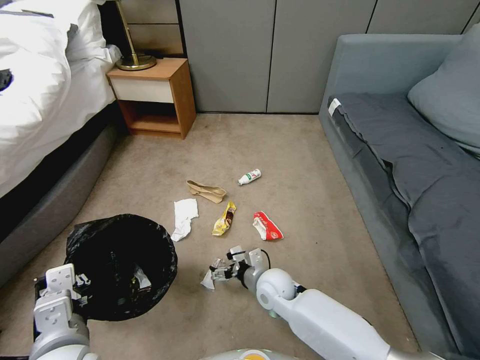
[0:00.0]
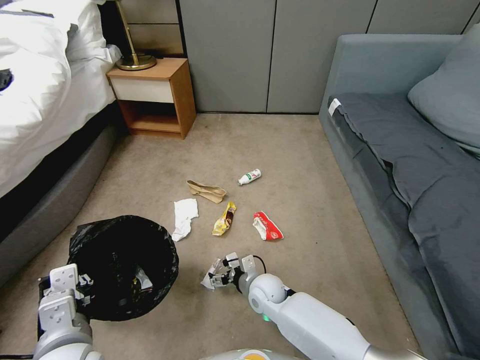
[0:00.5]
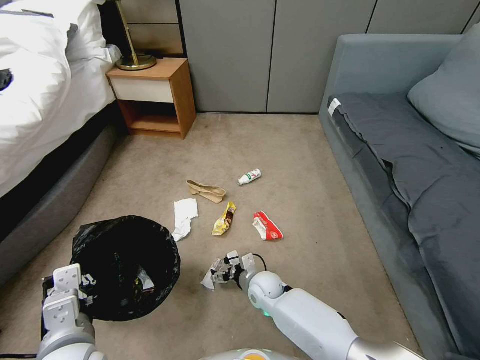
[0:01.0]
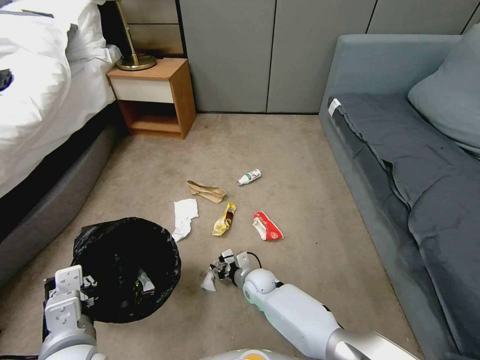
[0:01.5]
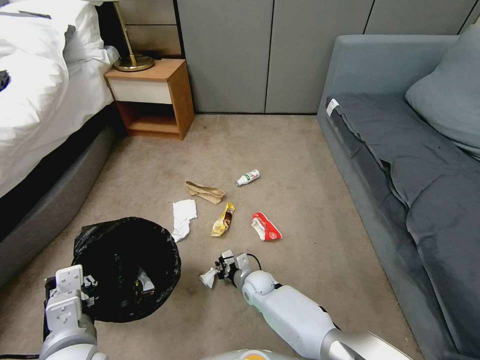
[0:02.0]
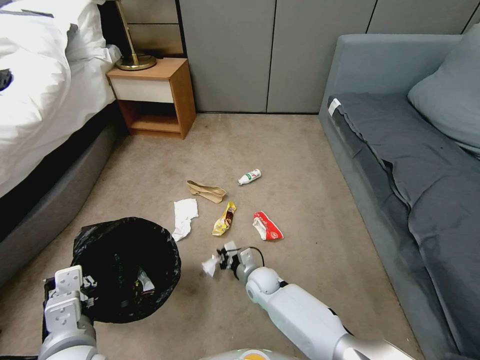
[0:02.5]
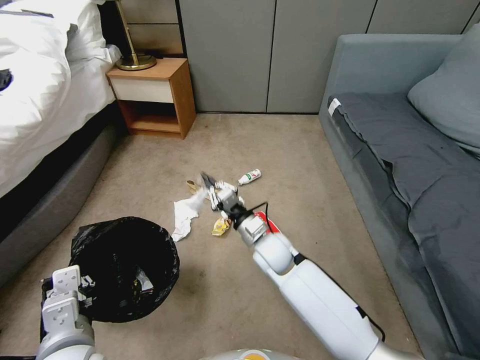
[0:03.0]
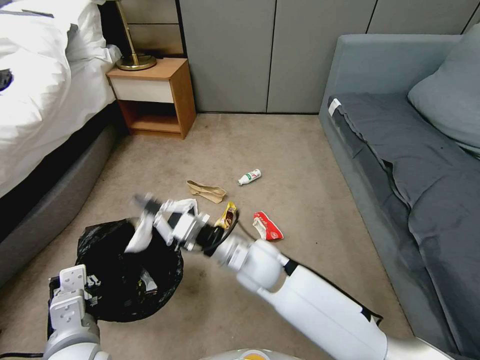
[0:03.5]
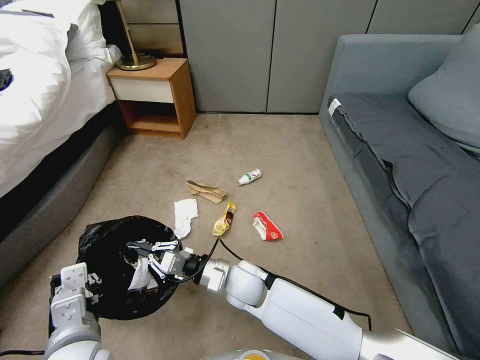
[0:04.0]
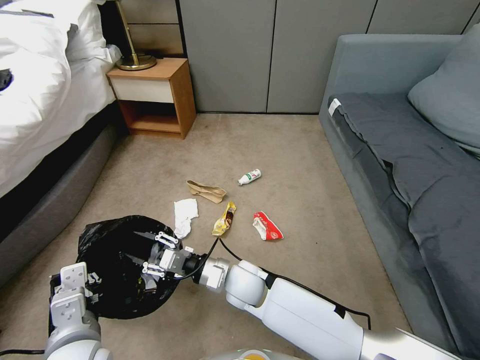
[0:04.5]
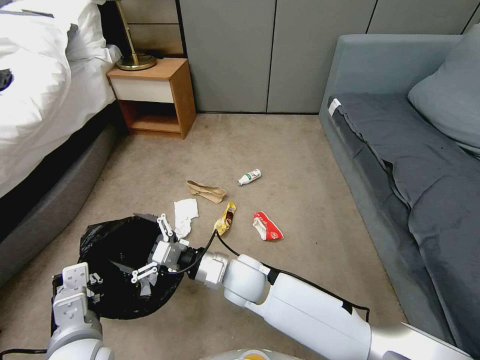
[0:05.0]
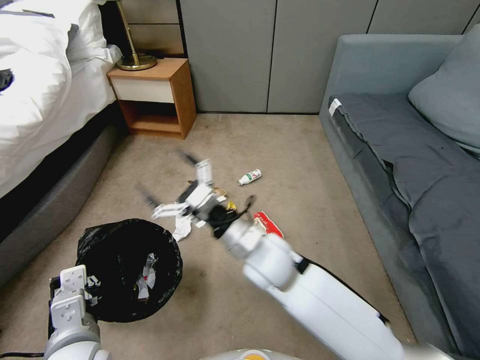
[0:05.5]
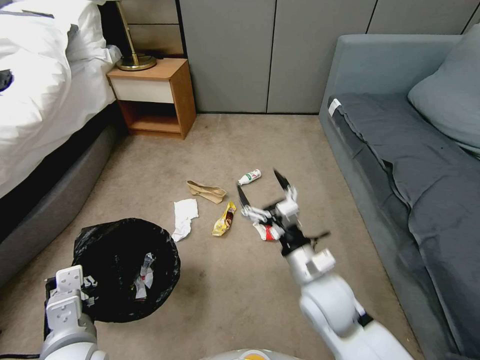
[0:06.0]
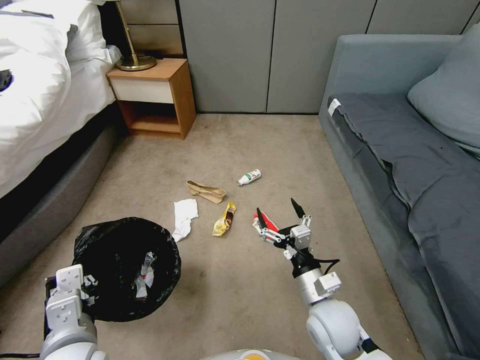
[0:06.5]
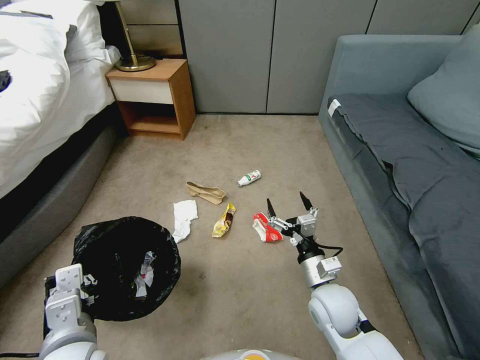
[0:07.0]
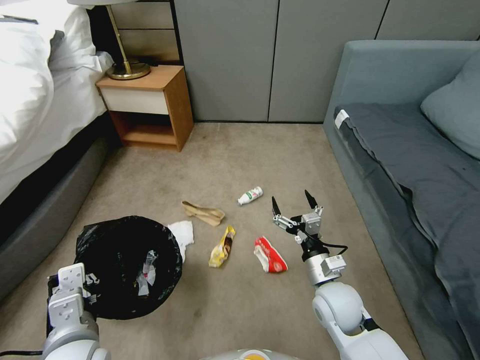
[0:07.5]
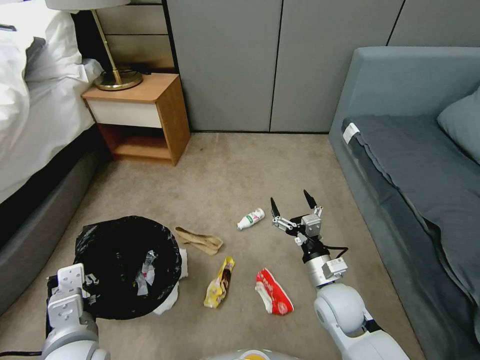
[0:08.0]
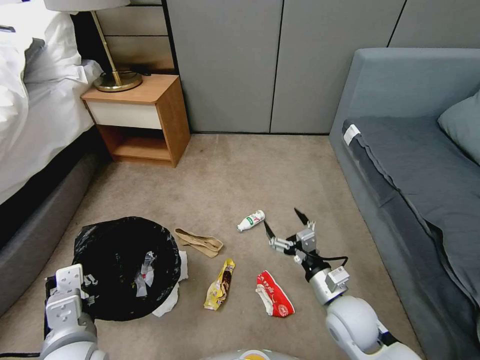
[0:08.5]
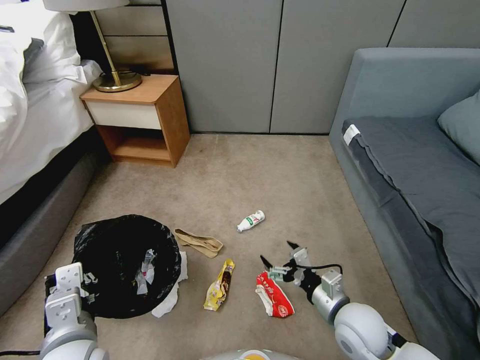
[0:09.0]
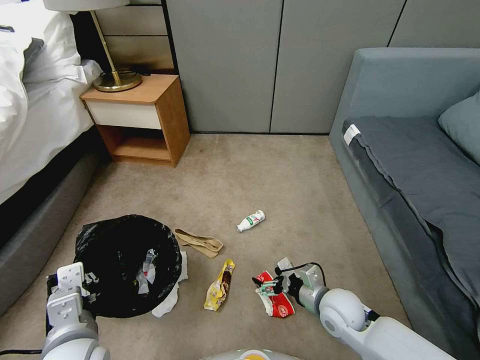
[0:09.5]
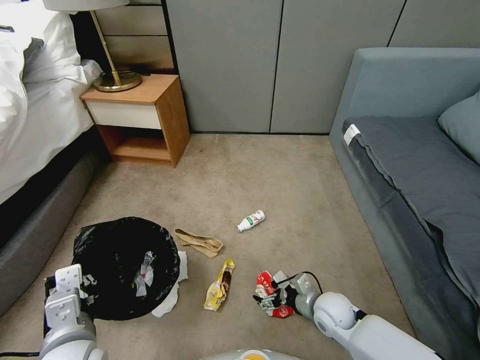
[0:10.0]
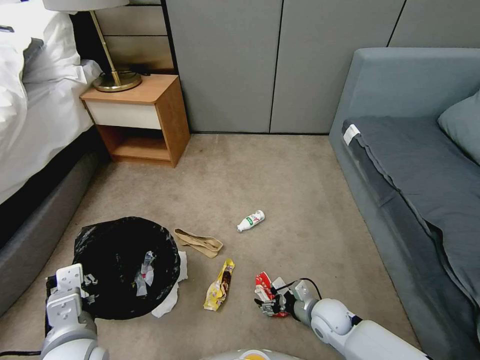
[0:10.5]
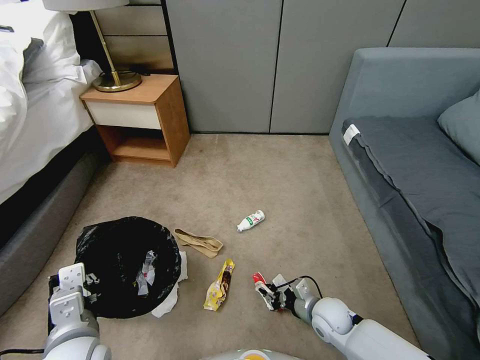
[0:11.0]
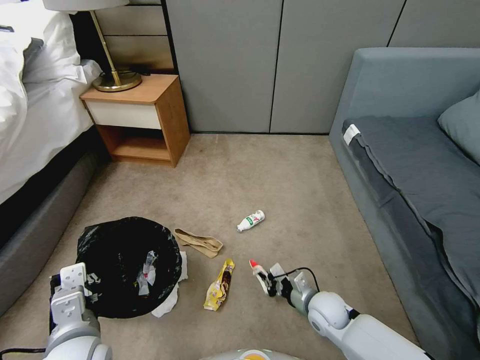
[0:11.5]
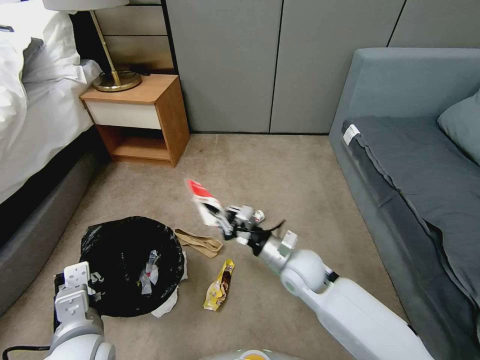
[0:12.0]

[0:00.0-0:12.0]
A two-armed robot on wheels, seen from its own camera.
Task of the whole recording: Pick up the trash bin, then pick up the garbage from the floor and place it into the trash bin.
0:00.0 to 0:02.0: The right gripper heads downward, covering approximately 10 cm, and closes its fingers.
0:02.0 to 0:04.0: The right gripper goes about 15 cm upward.
0:04.0 to 0:06.0: The right gripper shifts roughly 20 cm to the right and upward, and opens its fingers.
0:06.0 to 0:08.0: The right gripper moves downward, roughly 10 cm.
0:08.0 to 0:10.0: The right gripper moves downward, some 10 cm.
0:10.0 to 0:12.0: The right gripper travels upward and to the left by some 15 cm, and closes up.

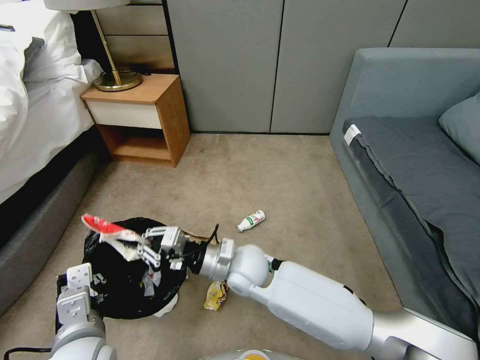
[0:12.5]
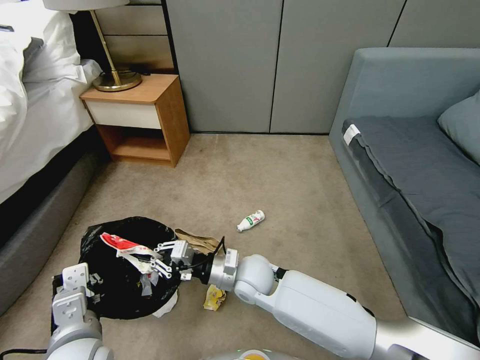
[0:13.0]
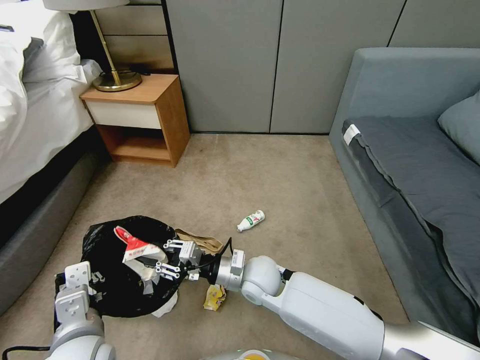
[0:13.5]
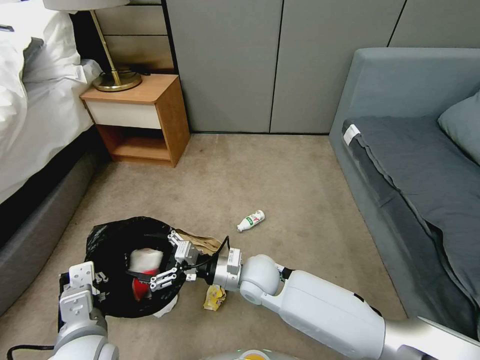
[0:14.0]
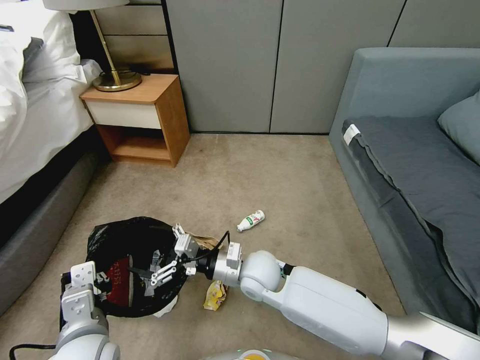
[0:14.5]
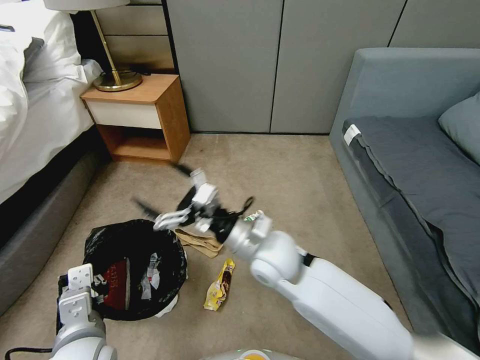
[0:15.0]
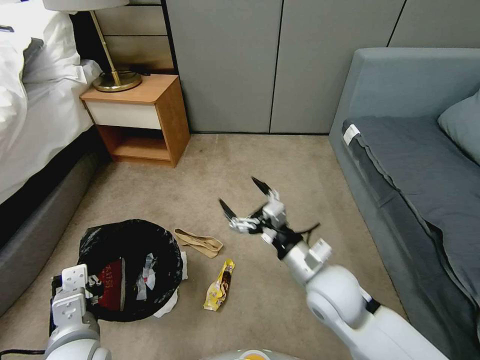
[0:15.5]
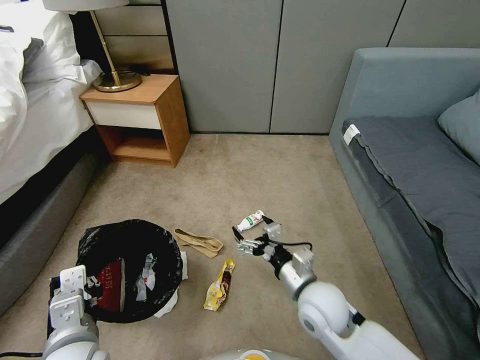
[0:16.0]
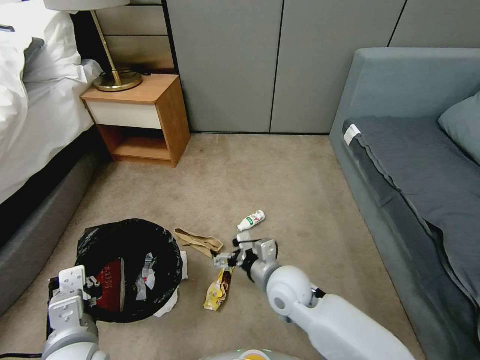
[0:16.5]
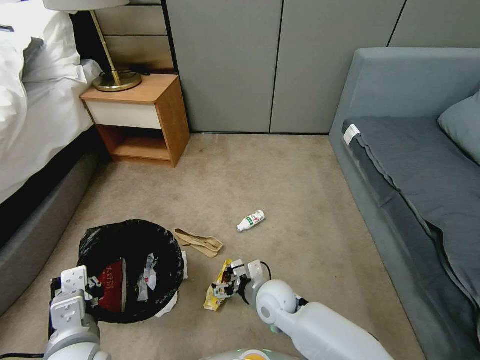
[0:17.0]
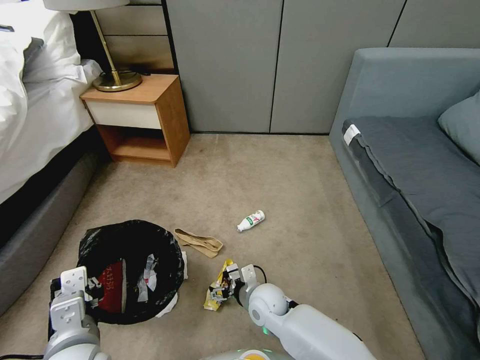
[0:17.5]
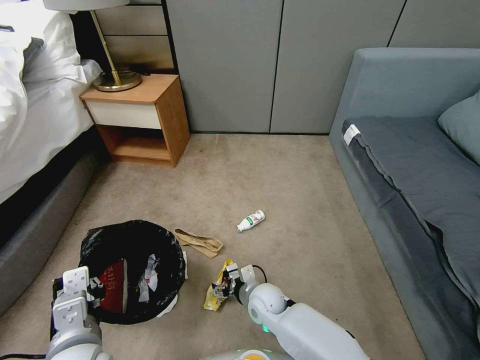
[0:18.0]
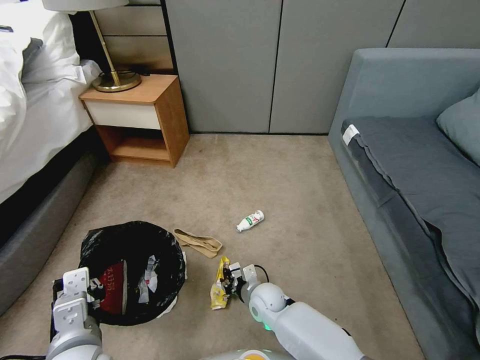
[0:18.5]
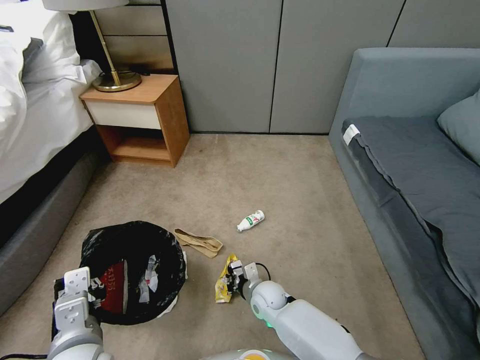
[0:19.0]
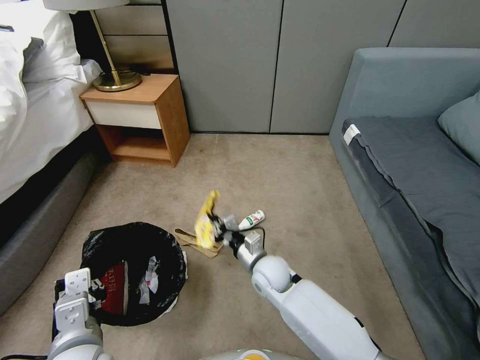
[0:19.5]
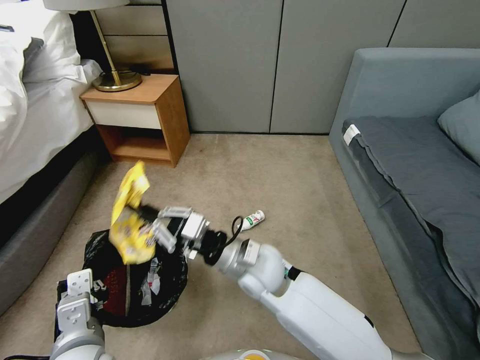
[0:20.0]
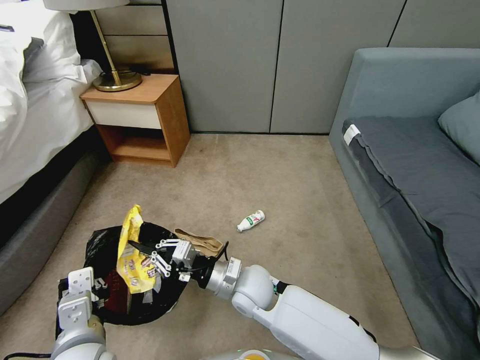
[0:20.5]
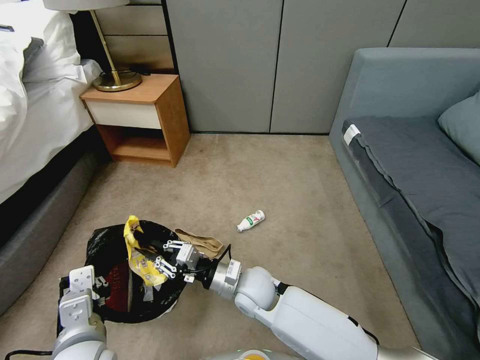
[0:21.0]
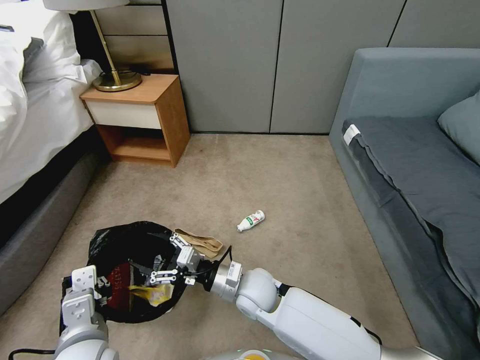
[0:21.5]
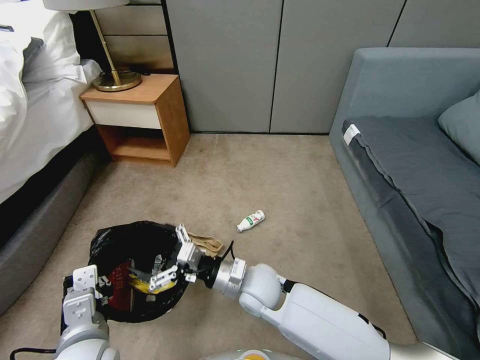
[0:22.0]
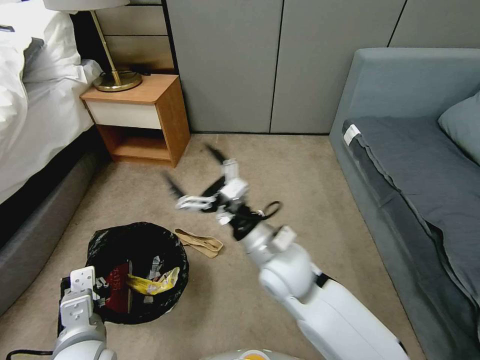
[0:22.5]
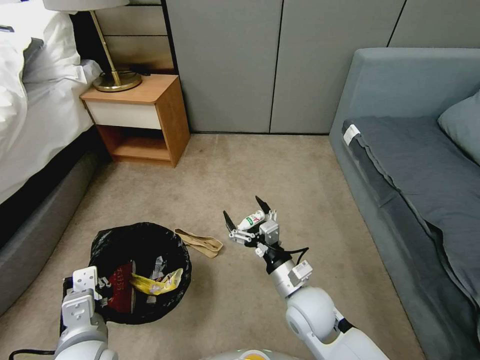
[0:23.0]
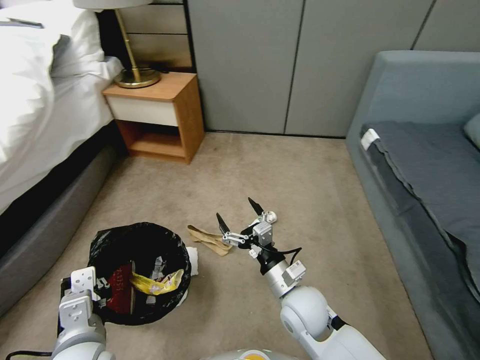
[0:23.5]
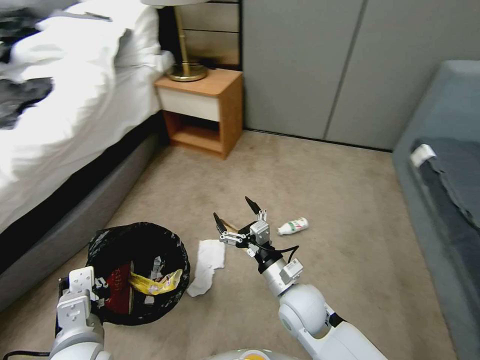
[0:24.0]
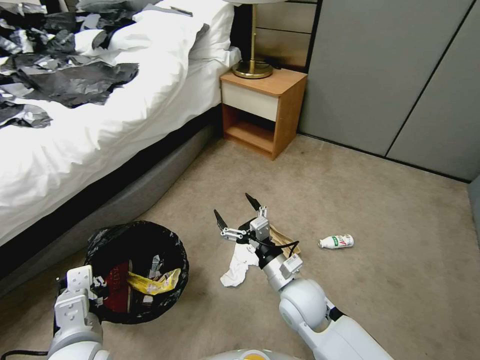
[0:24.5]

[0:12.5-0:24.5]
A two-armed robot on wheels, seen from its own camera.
Task of the whole recording: Pick up the trash bin, then pick up the garbage from the floor and place it into the trash bin.
0:12.5 to 0:14.5: The right gripper opens.
0:14.5 to 0:16.5: The right gripper moves to the right, some 5 cm.
0:16.5 to 0:18.5: The right gripper travels downward by roughly 15 cm, and closes.
0:18.5 to 0:20.5: The right gripper moves upward, about 15 cm.
0:20.5 to 0:22.5: The right gripper shifts roughly 15 cm upward and to the right, and opens up.
0:22.5 to 0:24.5: The right gripper travels downward by approximately 10 cm.

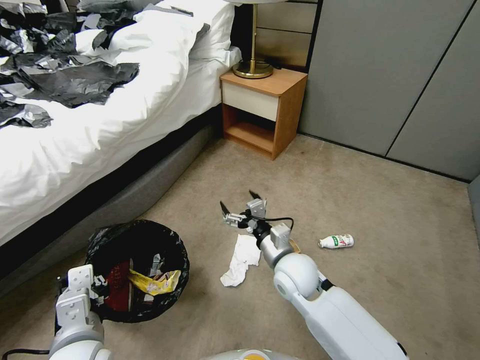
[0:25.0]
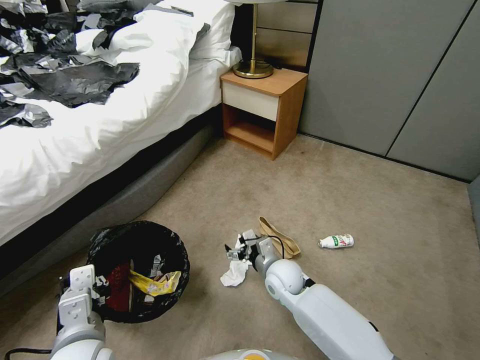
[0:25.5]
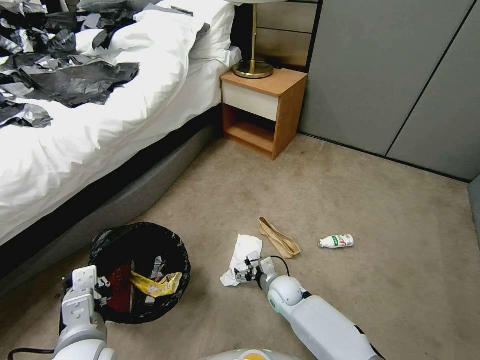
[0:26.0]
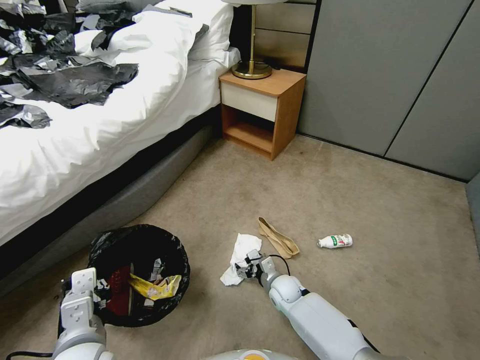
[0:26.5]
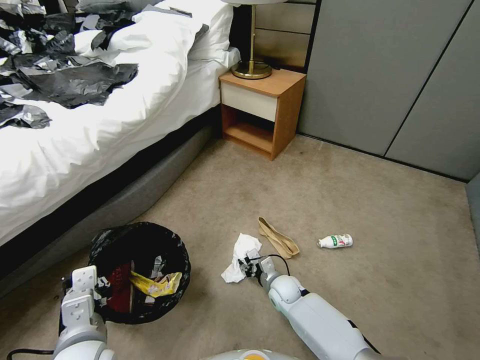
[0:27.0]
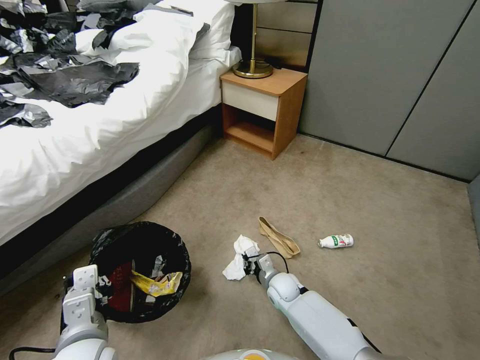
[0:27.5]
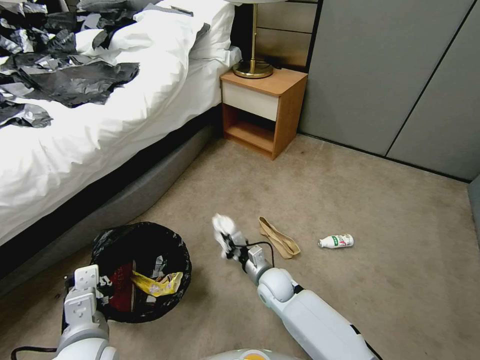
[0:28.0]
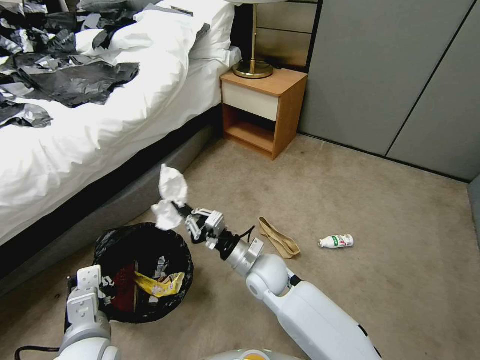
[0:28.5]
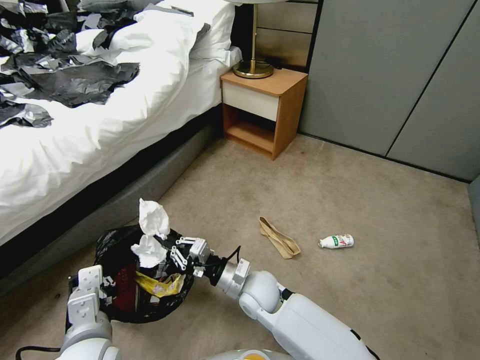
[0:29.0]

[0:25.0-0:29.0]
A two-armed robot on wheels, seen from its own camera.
Task of the whole recording: Pick up the trash bin, then pick up the garbage from the floor and place it into the trash bin.
0:25.0 to 0:27.0: The right gripper goes about 20 cm downward, and closes up.
0:27.0 to 0:29.0: The right gripper heads upward and to the left, covering some 20 cm, and closes.
